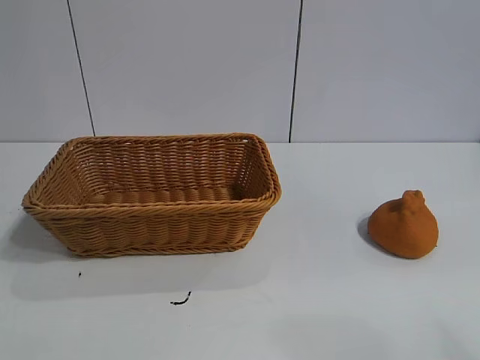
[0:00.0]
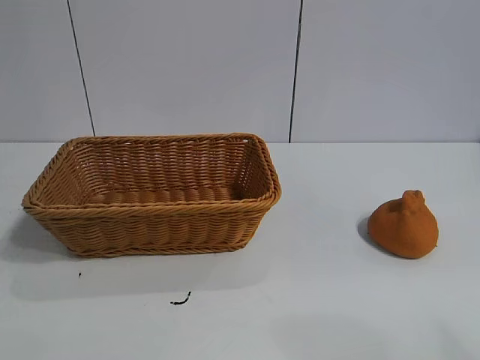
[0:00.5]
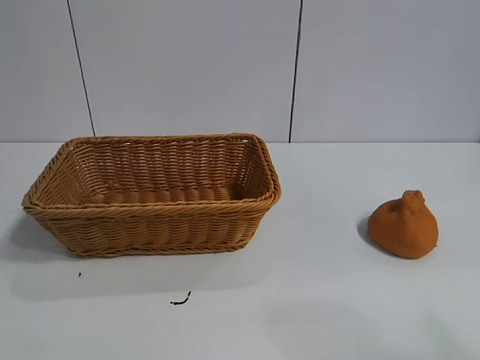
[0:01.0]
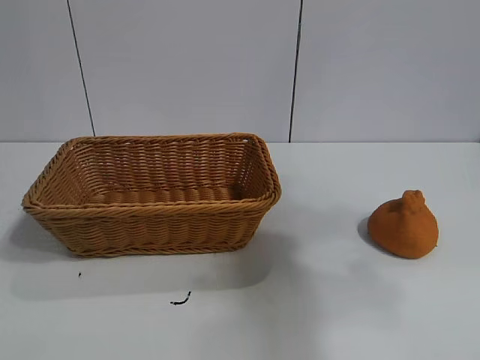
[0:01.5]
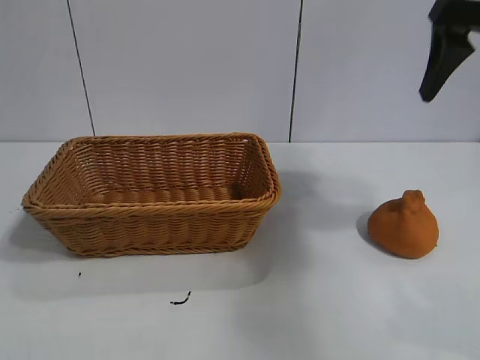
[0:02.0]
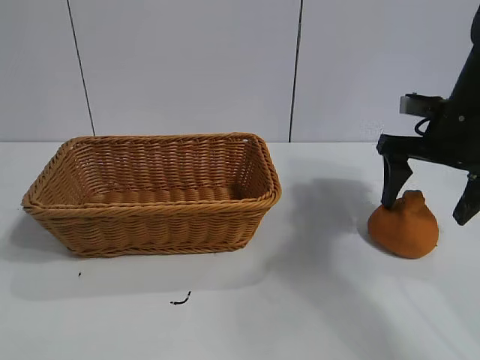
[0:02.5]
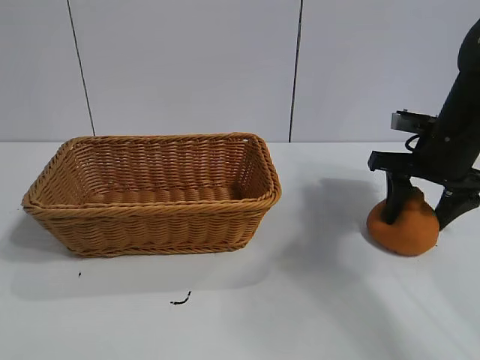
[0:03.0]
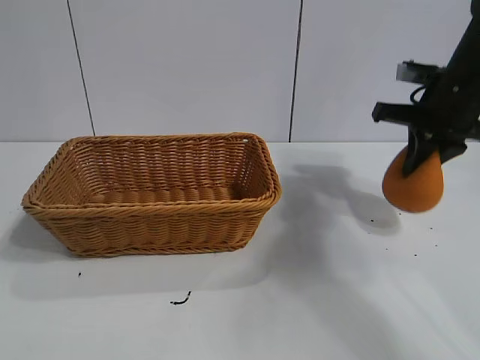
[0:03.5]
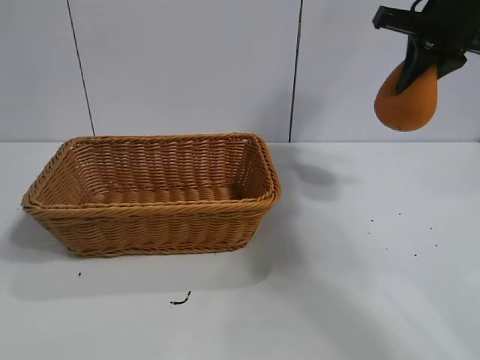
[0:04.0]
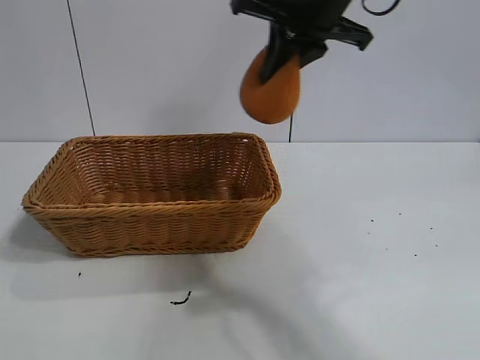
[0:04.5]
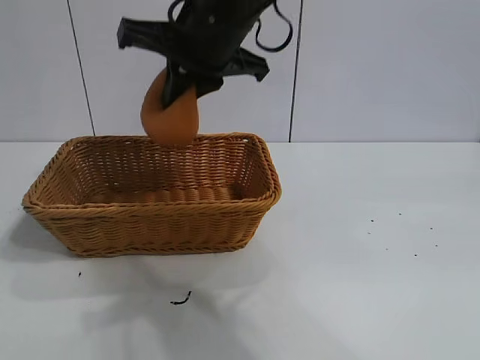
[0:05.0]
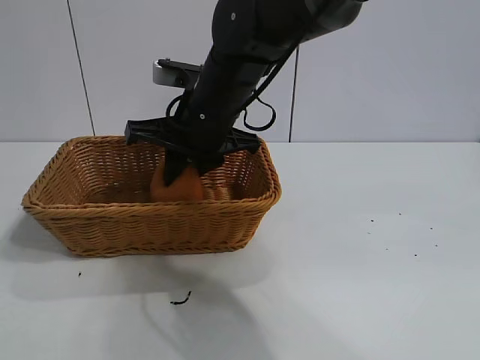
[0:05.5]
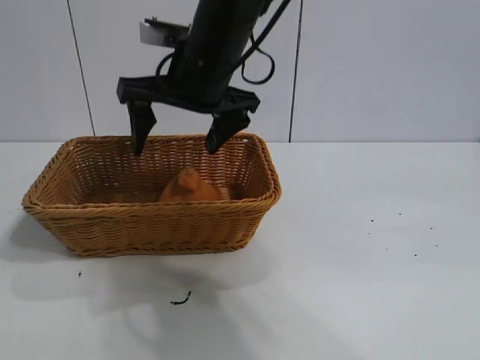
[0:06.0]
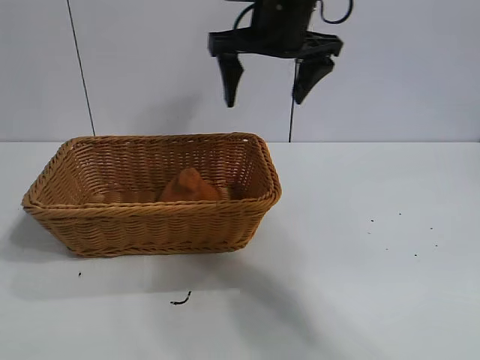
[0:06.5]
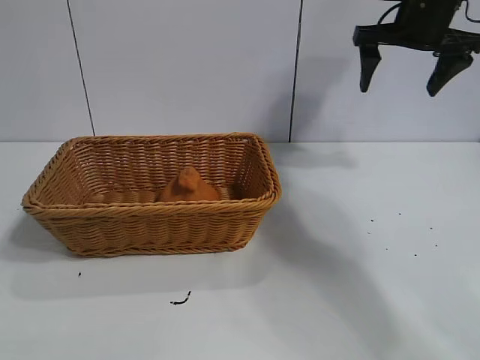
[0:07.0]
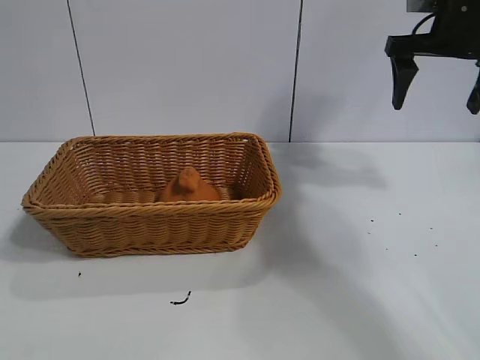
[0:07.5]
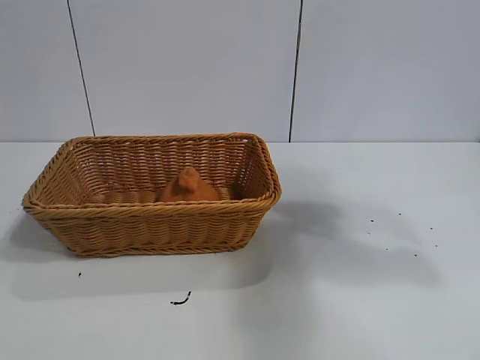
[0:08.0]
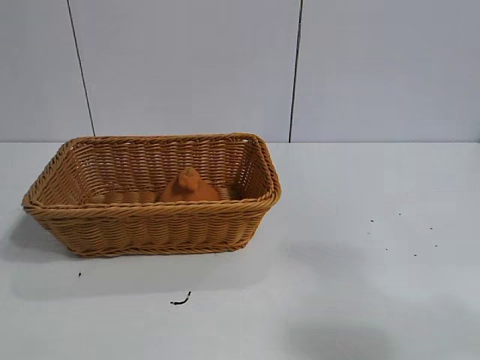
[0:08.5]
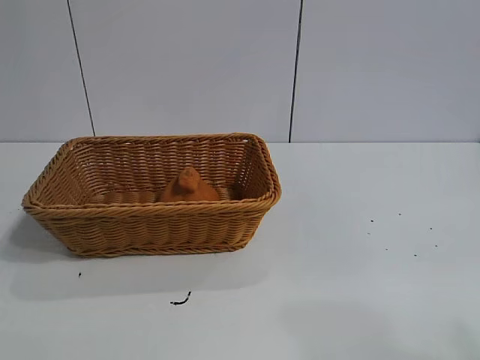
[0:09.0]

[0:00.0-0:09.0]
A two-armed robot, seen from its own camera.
Task of the whole recording: pick up the orange and put it into the basket.
Step, 0:01.0 to 0:03.0: Grasp the orange with right gripper.
Step, 0:03.5 to 0:05.5: Place the orange in the basket with right gripper.
